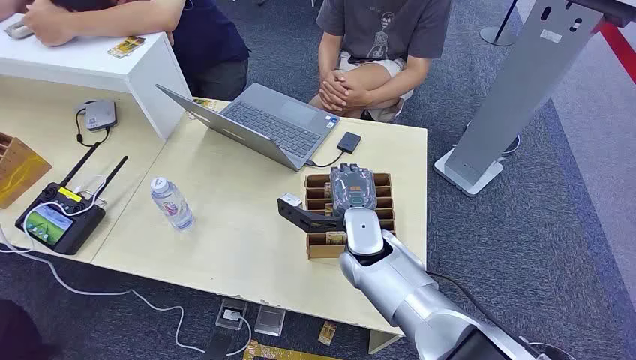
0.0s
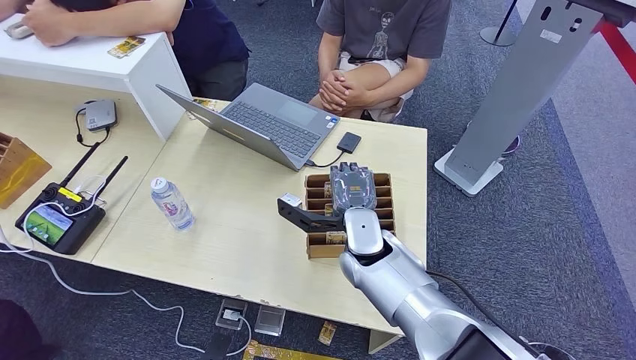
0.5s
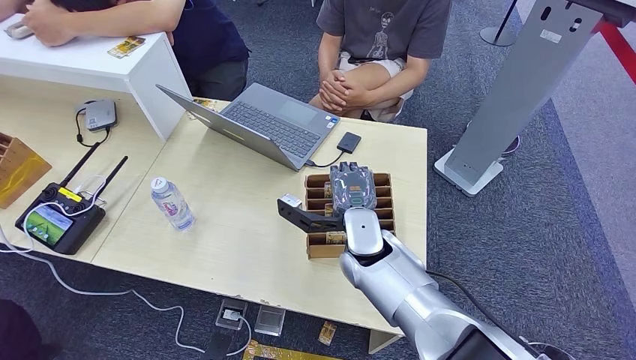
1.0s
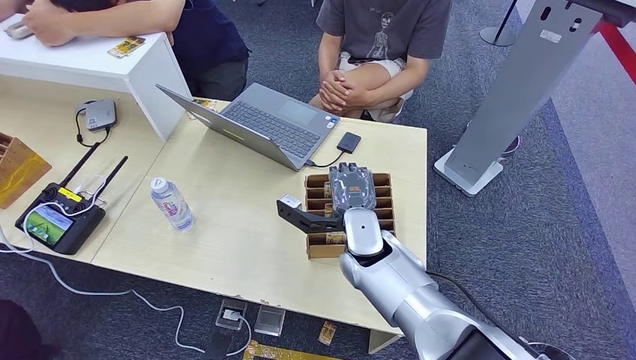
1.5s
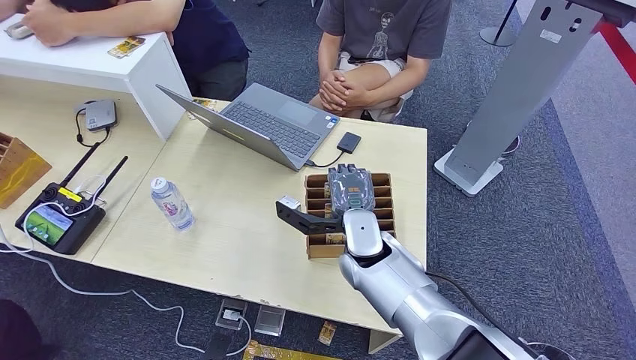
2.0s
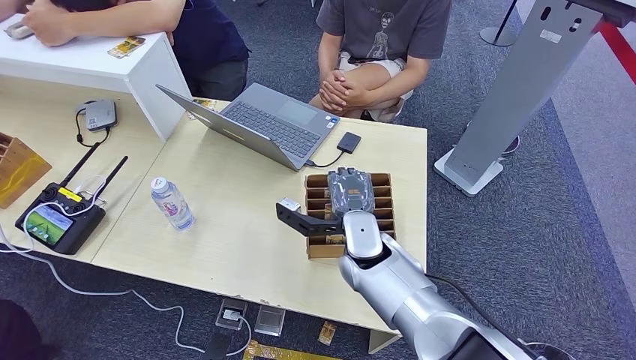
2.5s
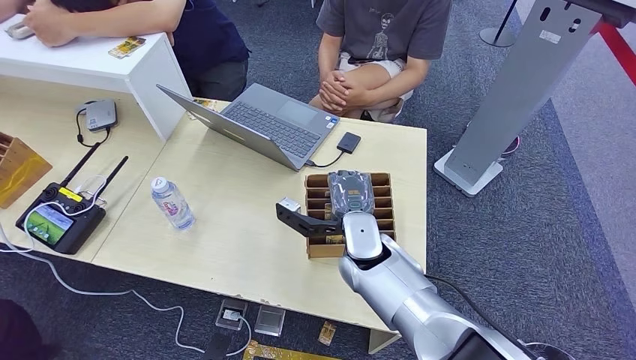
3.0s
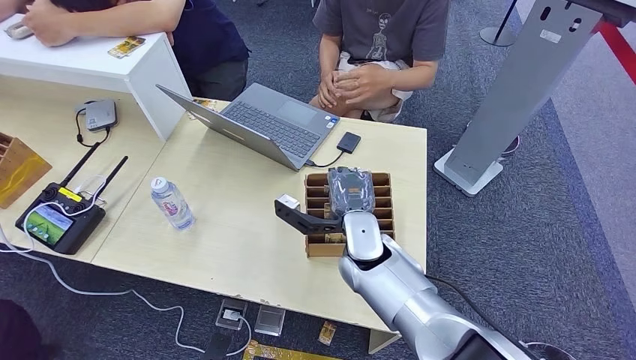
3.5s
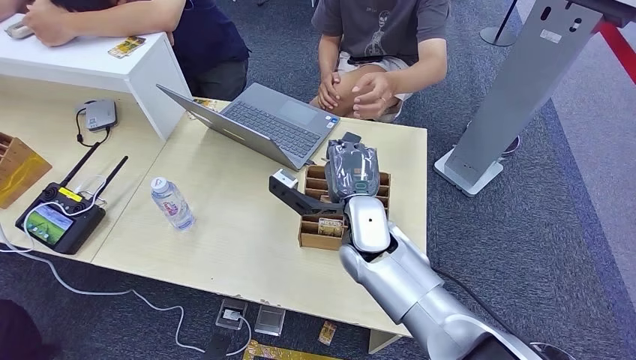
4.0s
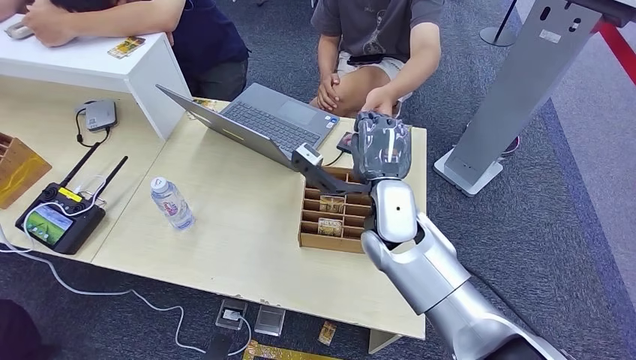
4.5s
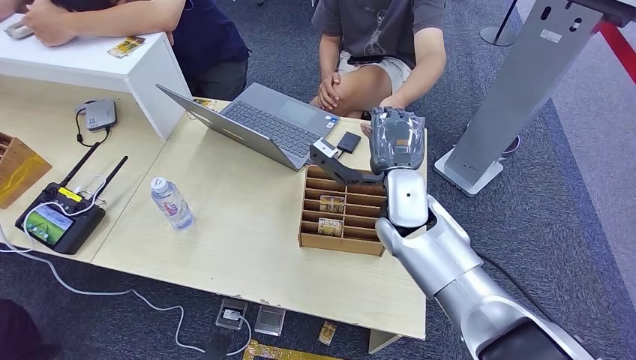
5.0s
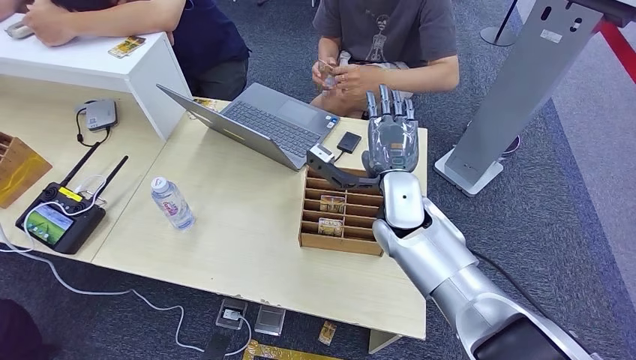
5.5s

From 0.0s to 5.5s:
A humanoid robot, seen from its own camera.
Task of the whole recording: Pick up the card and hand it over to the target person.
Step, from 0.0s to 4.0s: Pick up the key card from the card box.
Step, from 4.5s to 5.5s: Hand the key card to the target.
From 2.0s to 3.5s: The hands move only a little.
From 3.5s to 5.5s: The right hand shifts by approximately 5 cm.
